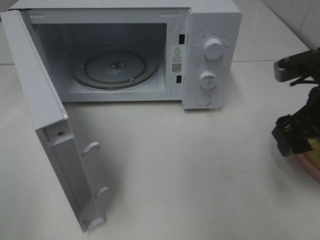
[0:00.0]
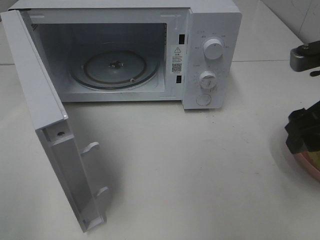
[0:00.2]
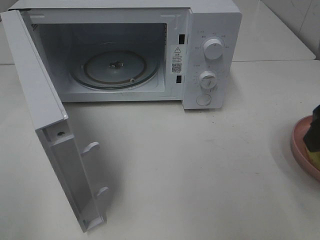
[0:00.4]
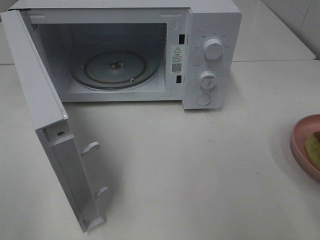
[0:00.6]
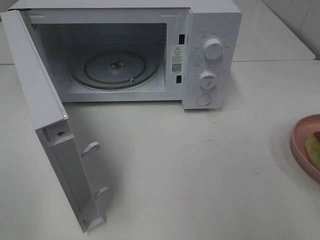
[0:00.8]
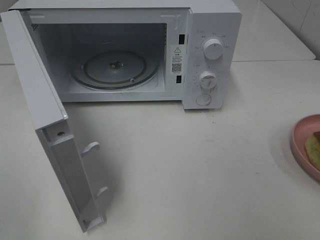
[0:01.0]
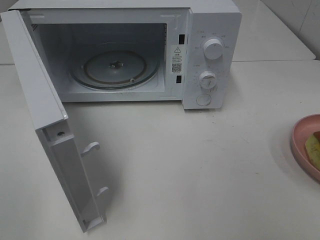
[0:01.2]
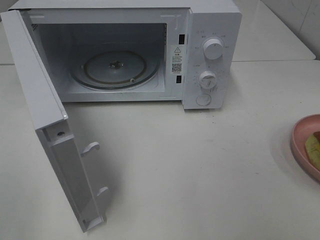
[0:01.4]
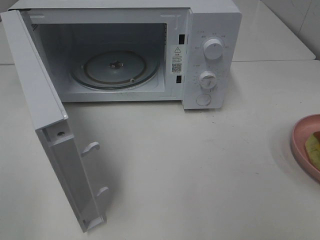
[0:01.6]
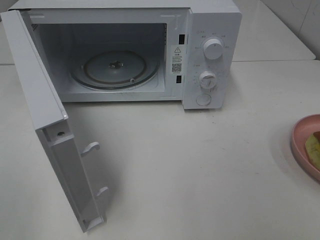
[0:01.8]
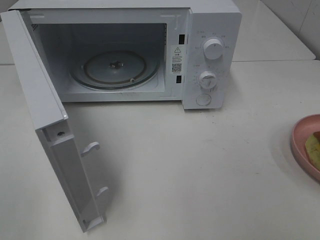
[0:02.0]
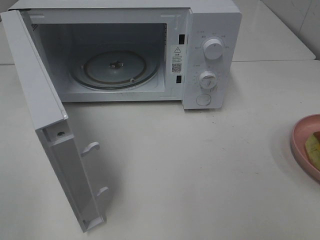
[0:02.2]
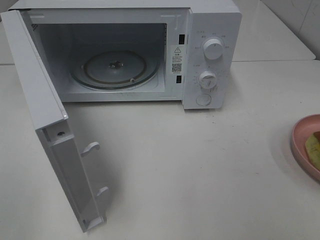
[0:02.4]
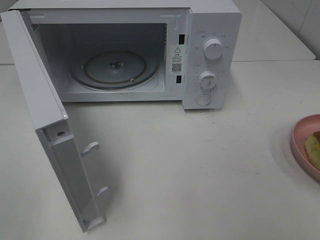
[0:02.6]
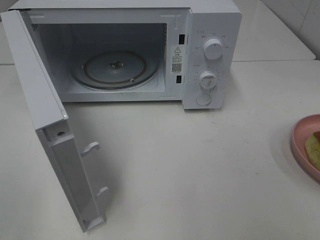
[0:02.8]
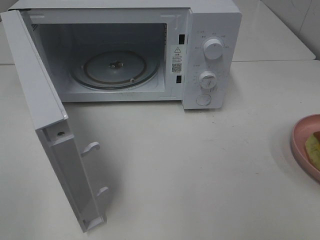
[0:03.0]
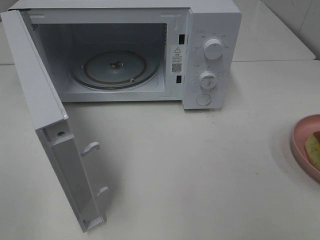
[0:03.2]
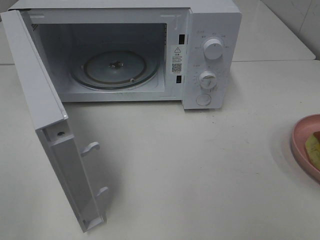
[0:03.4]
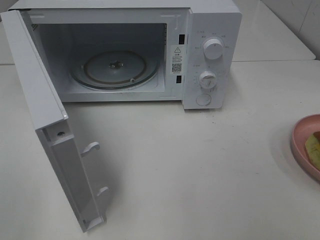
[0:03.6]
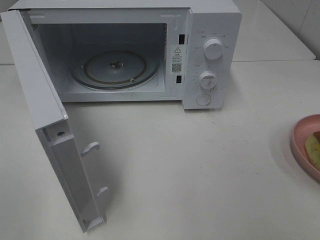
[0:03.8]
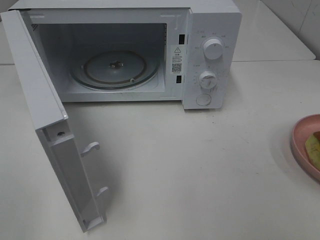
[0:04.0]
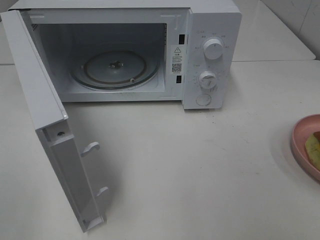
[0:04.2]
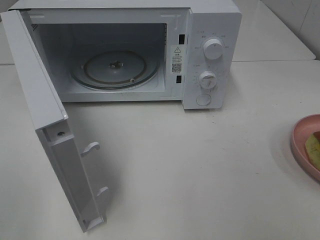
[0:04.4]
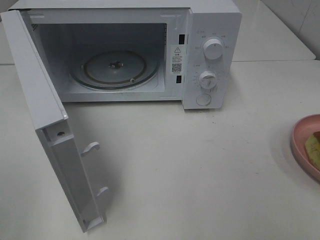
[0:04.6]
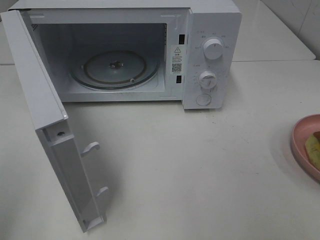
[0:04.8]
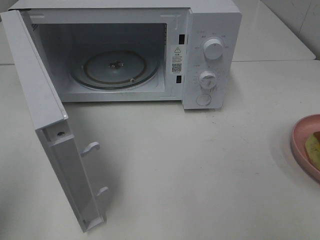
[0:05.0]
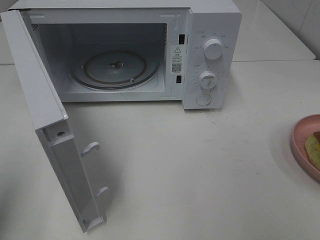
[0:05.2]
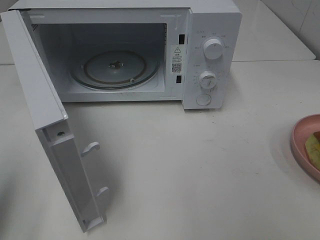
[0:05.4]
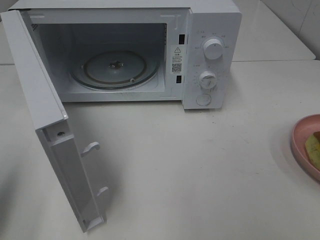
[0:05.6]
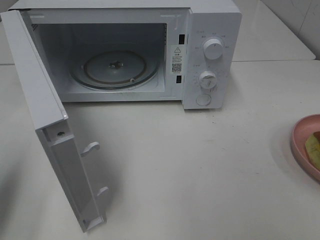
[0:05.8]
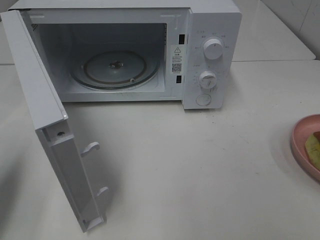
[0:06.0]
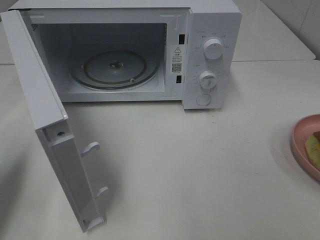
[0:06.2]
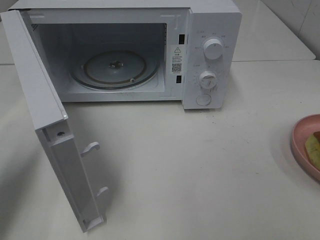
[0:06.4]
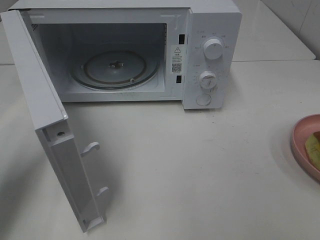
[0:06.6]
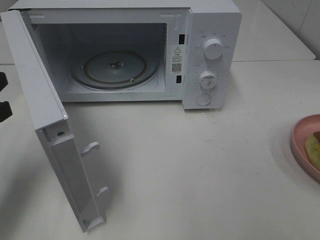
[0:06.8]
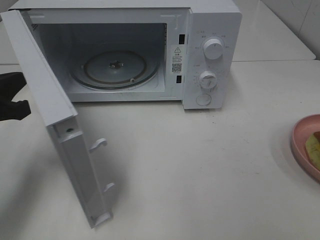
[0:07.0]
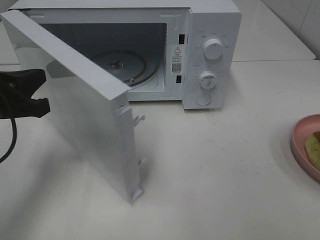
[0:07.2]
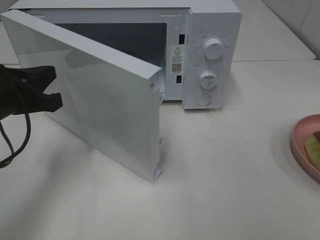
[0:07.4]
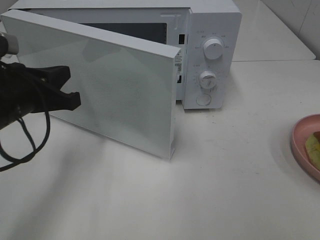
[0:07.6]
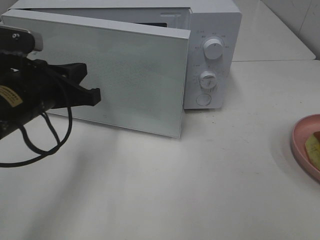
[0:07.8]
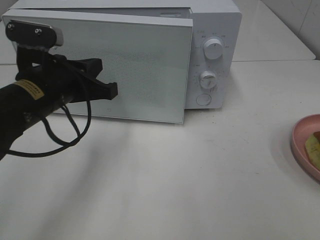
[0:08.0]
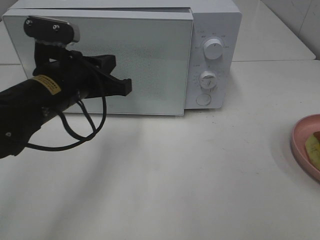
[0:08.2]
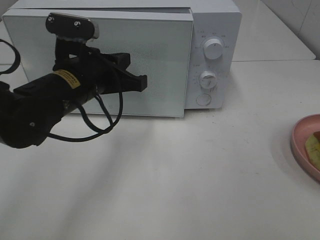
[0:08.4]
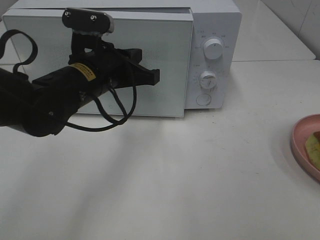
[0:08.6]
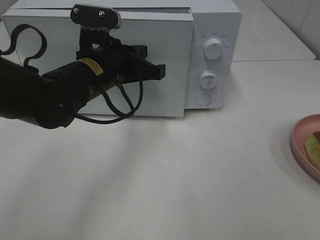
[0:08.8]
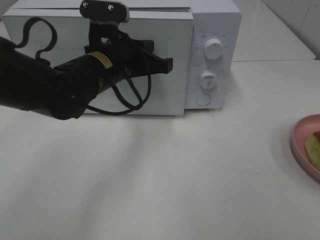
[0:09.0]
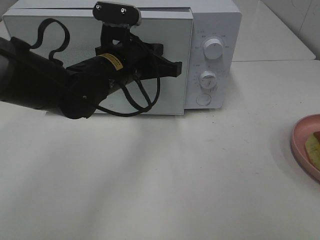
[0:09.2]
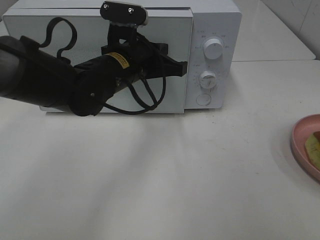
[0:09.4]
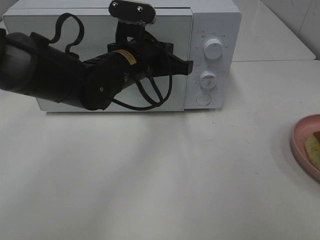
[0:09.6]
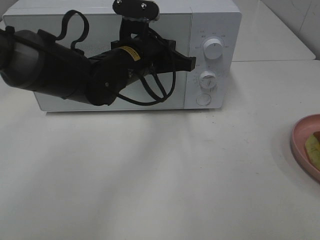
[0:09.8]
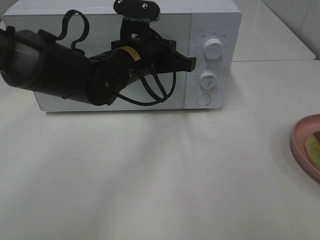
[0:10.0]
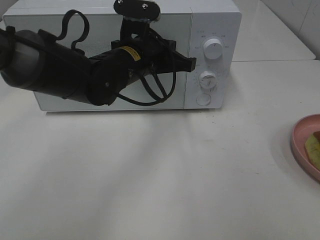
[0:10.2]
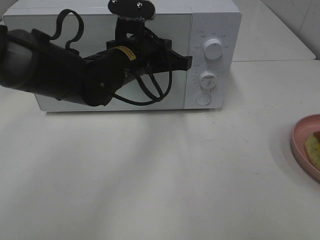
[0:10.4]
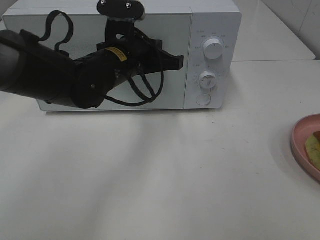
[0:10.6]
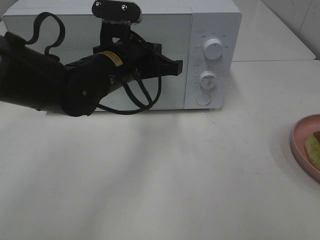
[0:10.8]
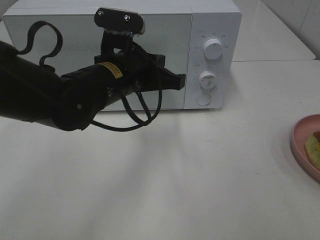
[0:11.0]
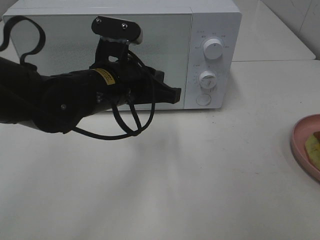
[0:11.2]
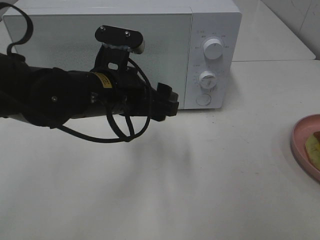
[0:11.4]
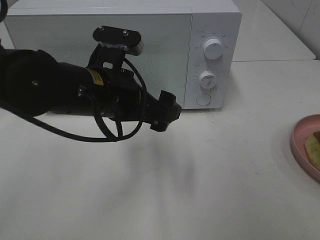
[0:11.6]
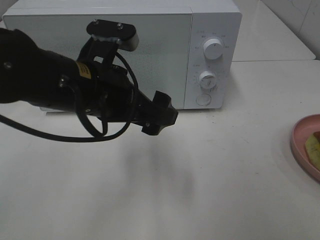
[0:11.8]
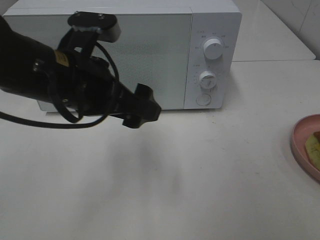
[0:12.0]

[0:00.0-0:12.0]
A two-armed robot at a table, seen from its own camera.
Task of the whole recording: Heat Sandwich.
Step, 0:00.0 to 0:10.8: Left hand: close the microwave door.
0:00.0 to 0:01.6: The right gripper moves backward, some 20 cm.
0:03.0 to 0:04.4: Both grippers stay about where they are.
0:04.4 to 0:06.0: The left gripper shifts some 15 cm forward and downward, and closes up.
0:06.0 to 0:07.6: The left gripper travels to the right and forward by about 15 cm.
0:07.6 to 0:09.0: The left gripper shifts roughly 15 cm to the right and forward.
0:09.0 to 0:10.4: There are only small adjustments of the grippers.
0:10.4 to 0:12.0: The left gripper goes some 10 cm backward and to the left, and opens up.

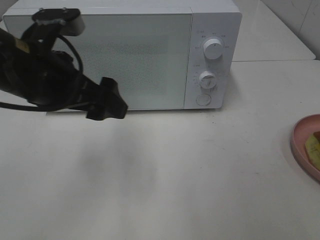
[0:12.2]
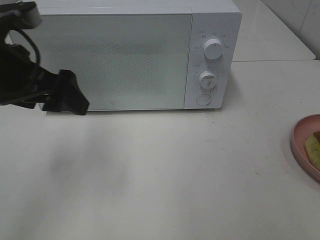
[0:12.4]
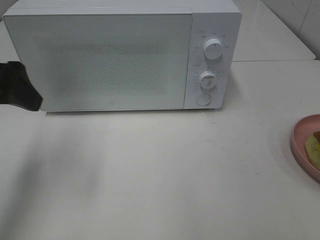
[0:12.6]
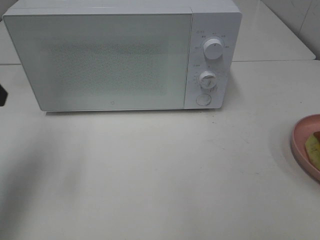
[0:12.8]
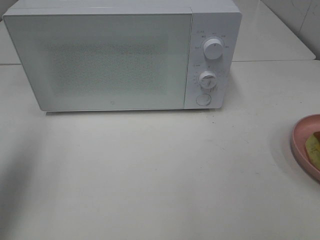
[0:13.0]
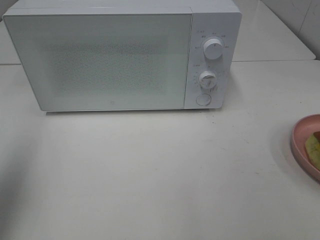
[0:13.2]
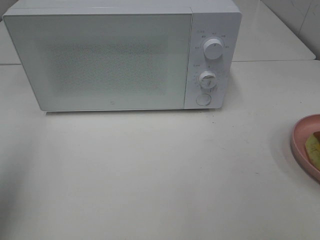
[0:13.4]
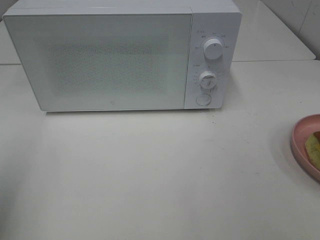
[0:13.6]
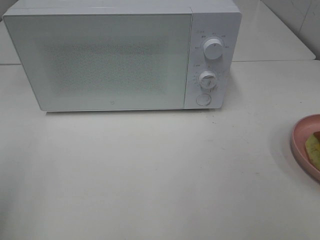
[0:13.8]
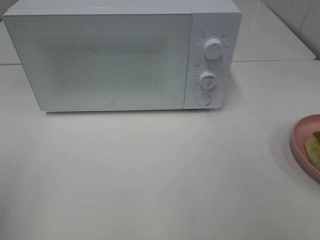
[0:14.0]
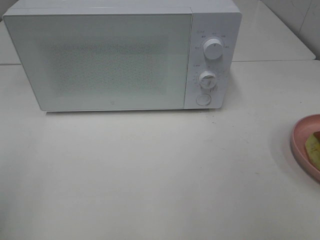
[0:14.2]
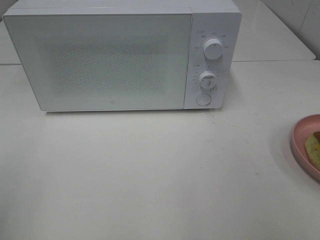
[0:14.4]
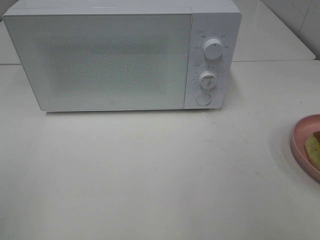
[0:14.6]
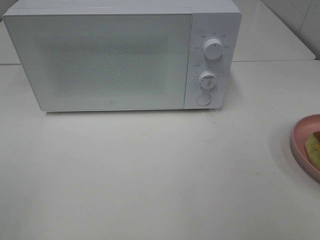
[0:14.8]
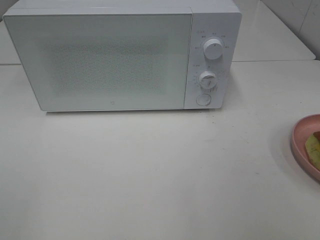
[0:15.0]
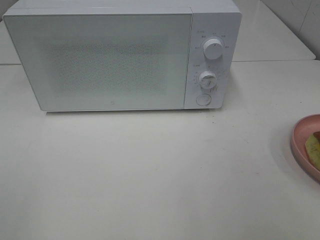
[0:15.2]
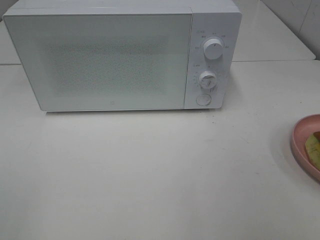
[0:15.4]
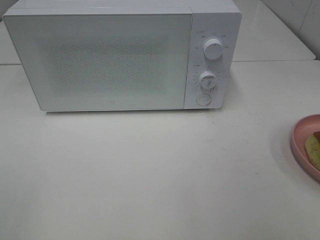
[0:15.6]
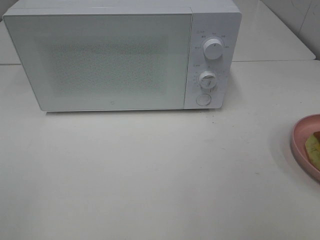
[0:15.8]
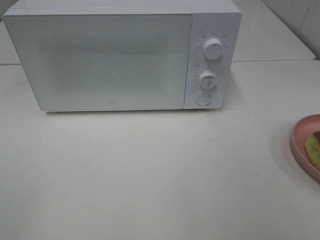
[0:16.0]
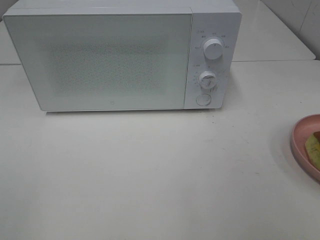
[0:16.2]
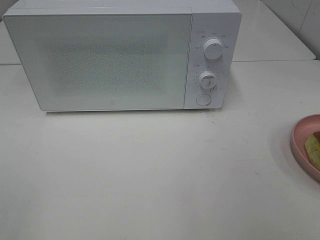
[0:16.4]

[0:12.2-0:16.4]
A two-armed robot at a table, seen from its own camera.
Task of the whole recording: Heat Sandwich.
0:12.2 to 0:13.6: The left gripper moves to the left and backward, about 20 cm.
0:13.6 to 0:15.0: The left gripper goes roughly 10 cm backward.
0:15.0 to 0:16.4: Neither gripper changes place.

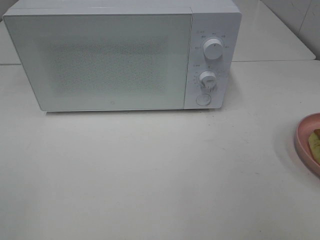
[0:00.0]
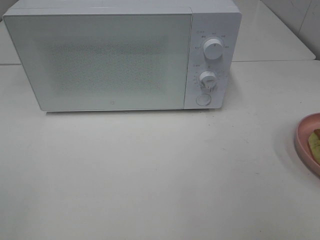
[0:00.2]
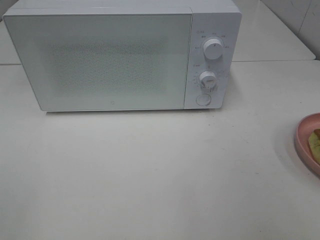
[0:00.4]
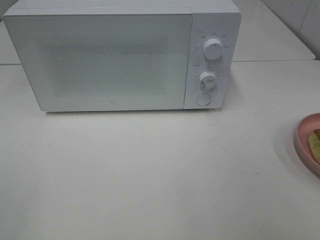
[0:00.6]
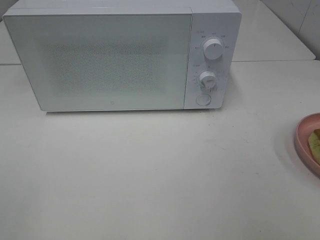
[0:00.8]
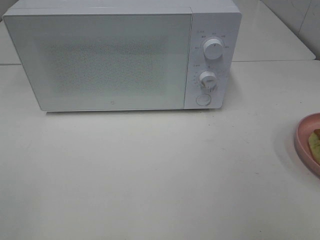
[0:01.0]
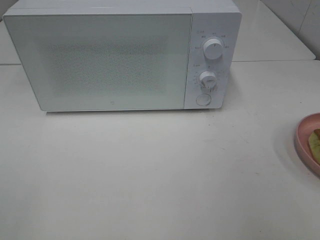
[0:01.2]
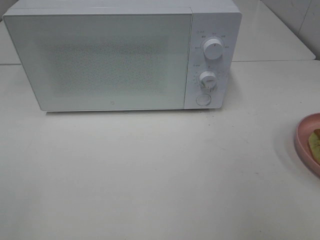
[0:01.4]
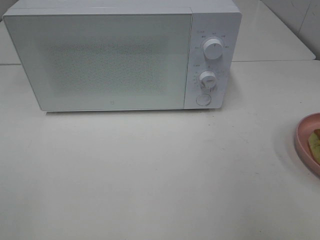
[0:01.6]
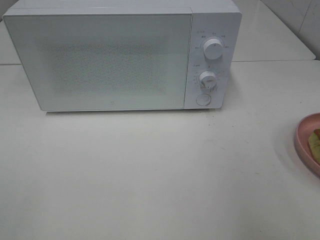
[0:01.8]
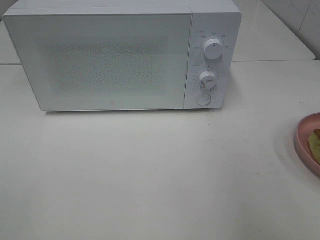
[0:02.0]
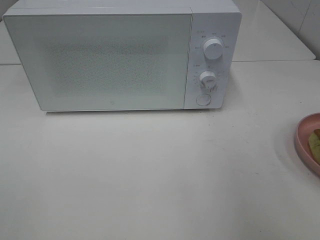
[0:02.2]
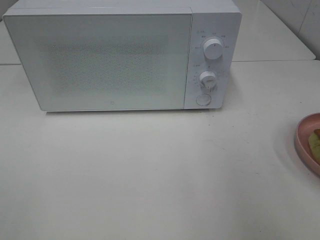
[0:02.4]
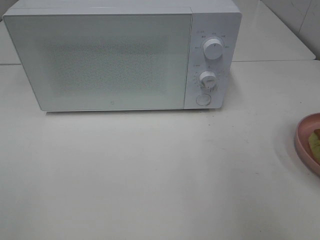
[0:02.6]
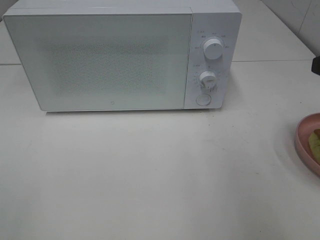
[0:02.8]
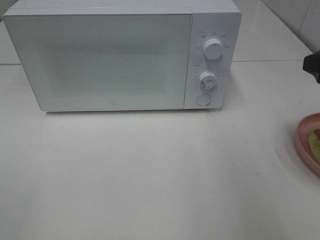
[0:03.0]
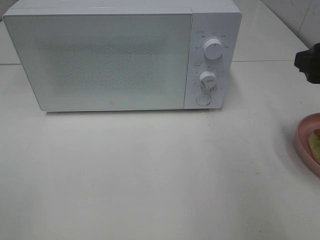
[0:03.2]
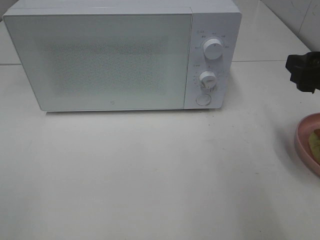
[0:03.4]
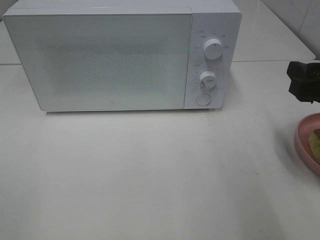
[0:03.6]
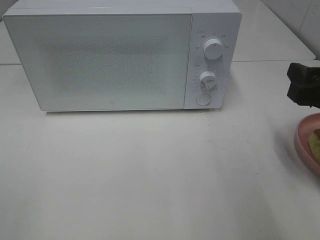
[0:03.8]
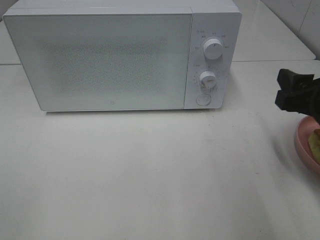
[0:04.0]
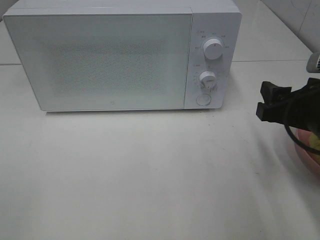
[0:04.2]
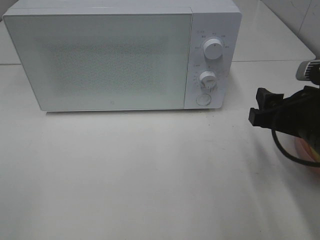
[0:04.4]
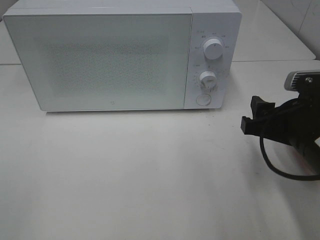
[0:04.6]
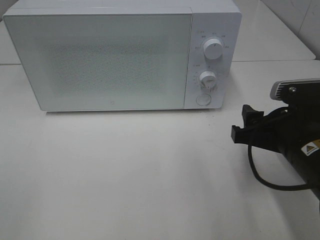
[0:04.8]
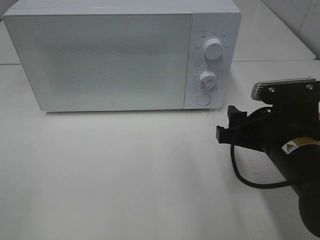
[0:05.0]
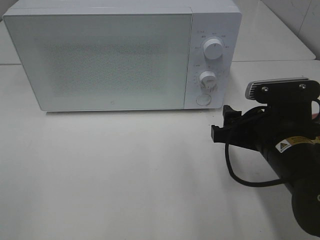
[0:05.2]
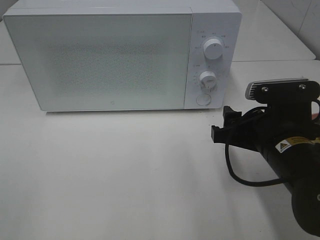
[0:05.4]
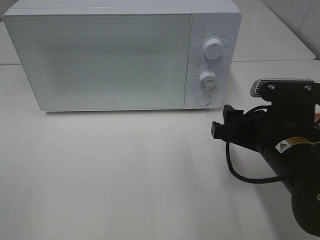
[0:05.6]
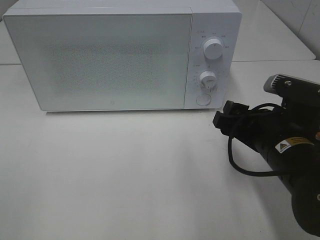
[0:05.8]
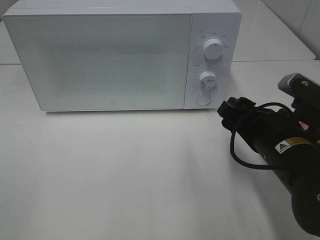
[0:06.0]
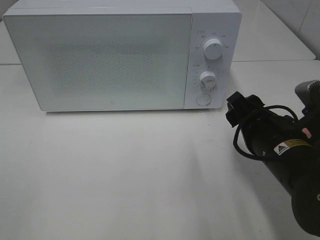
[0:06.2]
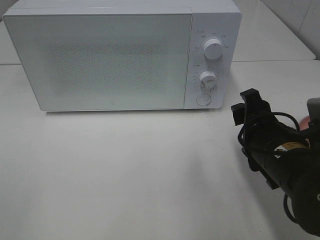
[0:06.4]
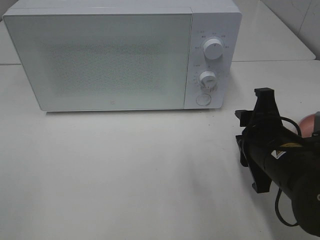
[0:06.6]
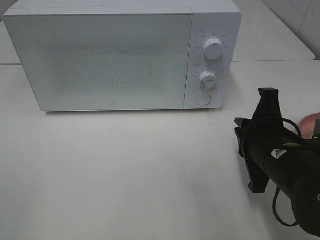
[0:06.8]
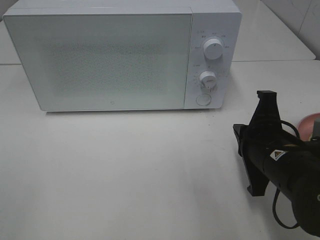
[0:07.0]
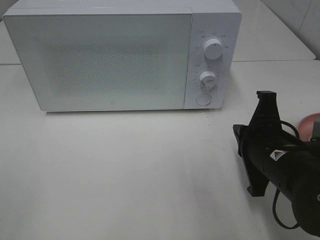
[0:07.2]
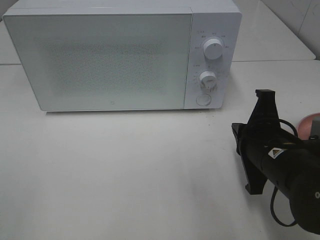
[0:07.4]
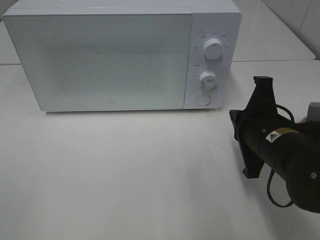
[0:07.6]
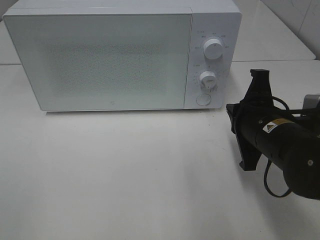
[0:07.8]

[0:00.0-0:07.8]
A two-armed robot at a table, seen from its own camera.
Task of the whole recording: Heat Sandwich.
0:01.6 to 0:03.2: The right gripper shifts some 15 cm forward and downward.
0:03.2 to 0:04.6: The right gripper moves downward and to the left, approximately 10 cm.
0:06.2 to 0:07.8: The right gripper closes up.
